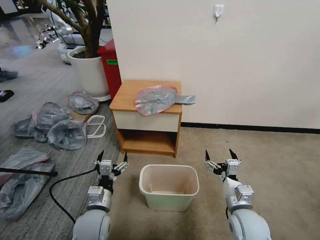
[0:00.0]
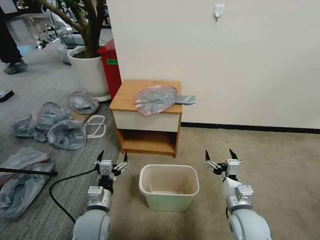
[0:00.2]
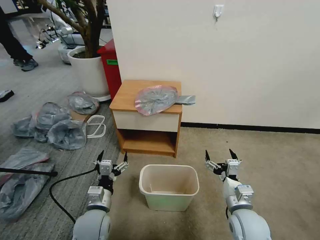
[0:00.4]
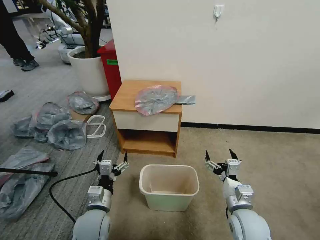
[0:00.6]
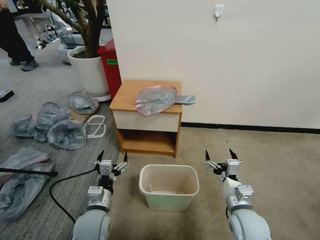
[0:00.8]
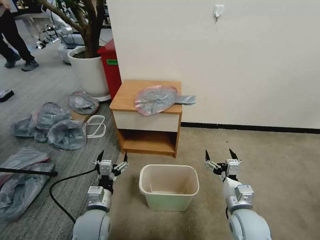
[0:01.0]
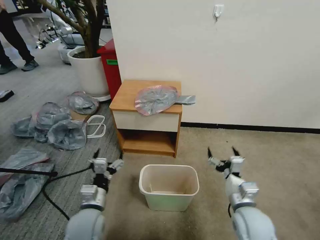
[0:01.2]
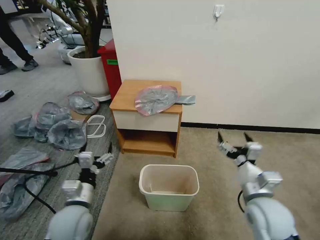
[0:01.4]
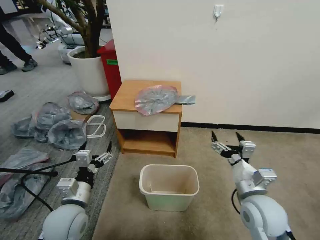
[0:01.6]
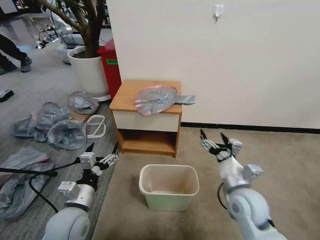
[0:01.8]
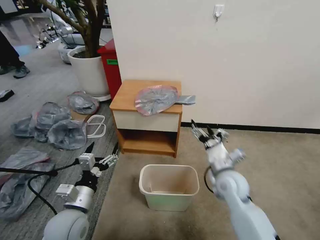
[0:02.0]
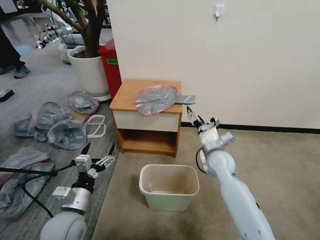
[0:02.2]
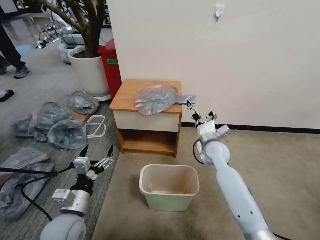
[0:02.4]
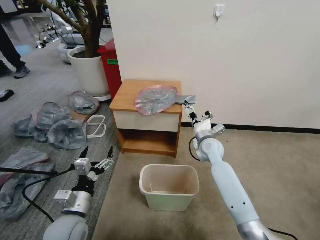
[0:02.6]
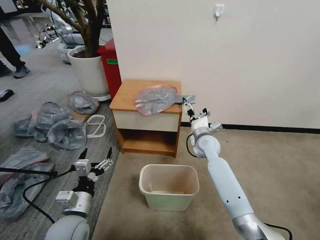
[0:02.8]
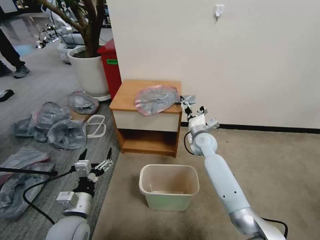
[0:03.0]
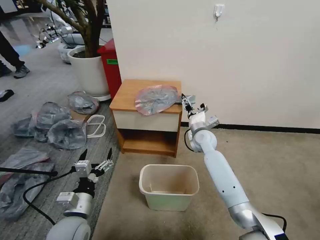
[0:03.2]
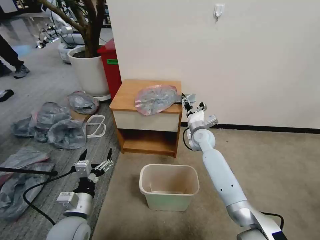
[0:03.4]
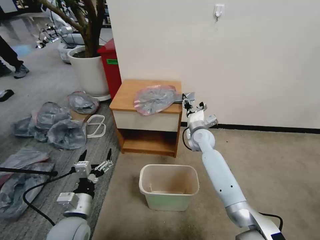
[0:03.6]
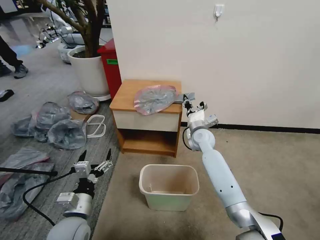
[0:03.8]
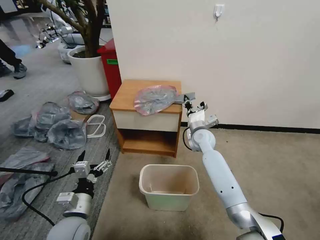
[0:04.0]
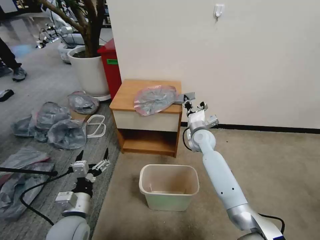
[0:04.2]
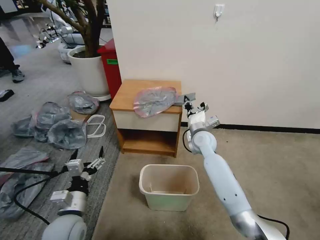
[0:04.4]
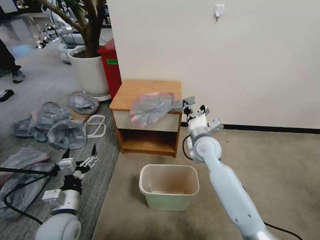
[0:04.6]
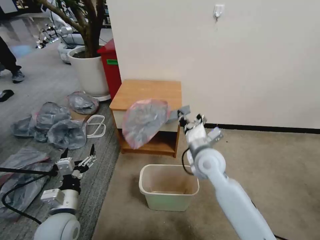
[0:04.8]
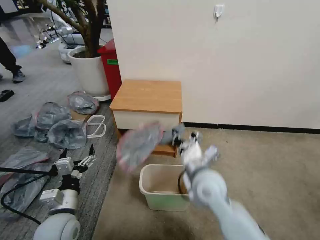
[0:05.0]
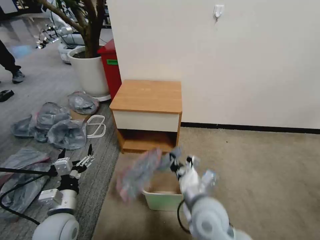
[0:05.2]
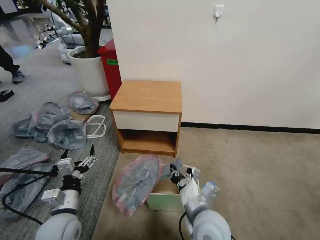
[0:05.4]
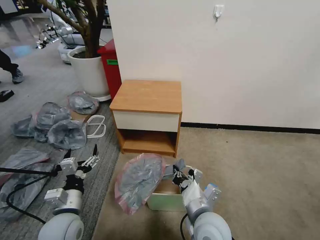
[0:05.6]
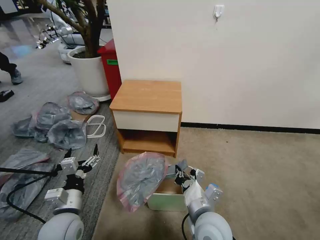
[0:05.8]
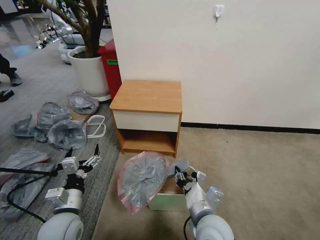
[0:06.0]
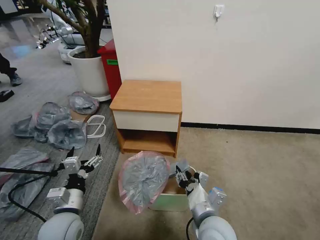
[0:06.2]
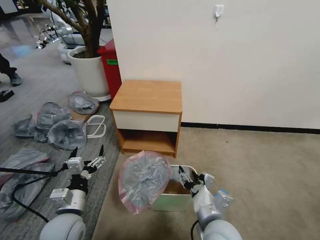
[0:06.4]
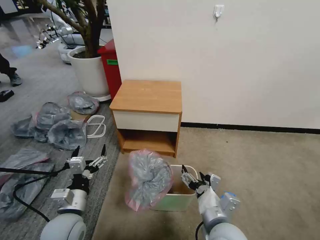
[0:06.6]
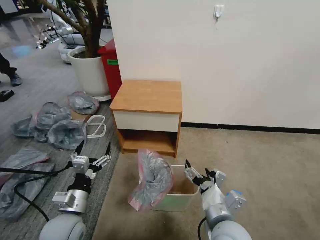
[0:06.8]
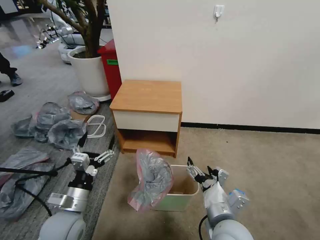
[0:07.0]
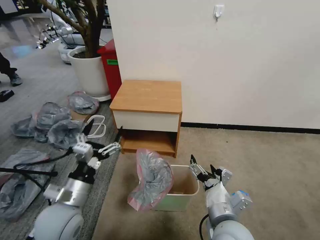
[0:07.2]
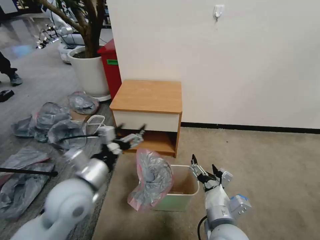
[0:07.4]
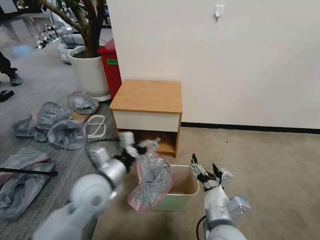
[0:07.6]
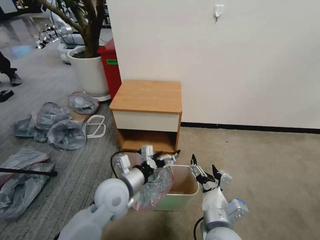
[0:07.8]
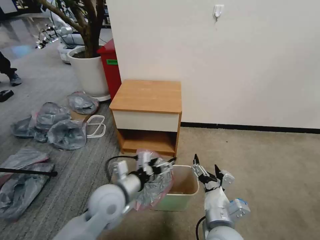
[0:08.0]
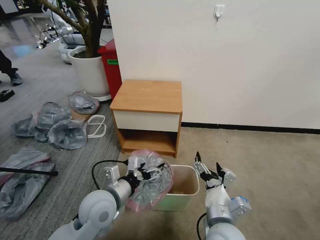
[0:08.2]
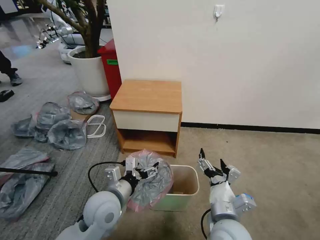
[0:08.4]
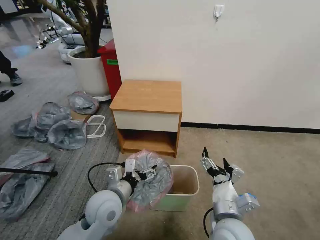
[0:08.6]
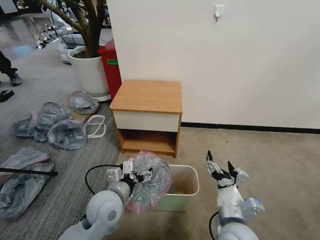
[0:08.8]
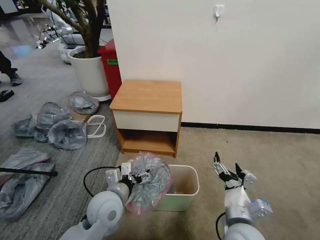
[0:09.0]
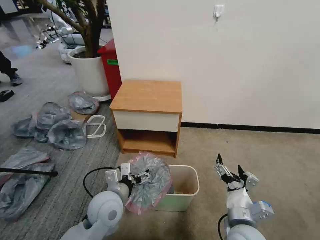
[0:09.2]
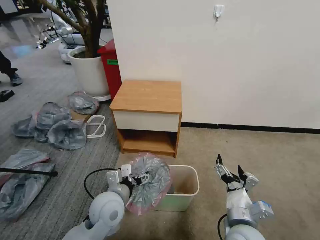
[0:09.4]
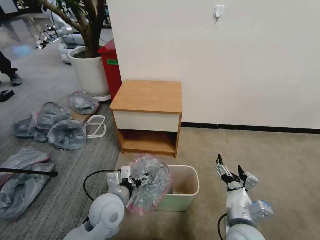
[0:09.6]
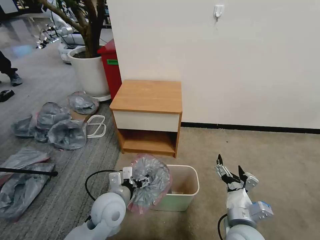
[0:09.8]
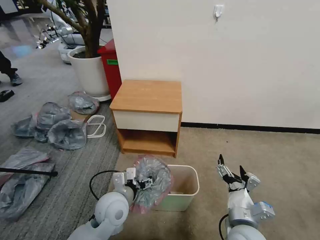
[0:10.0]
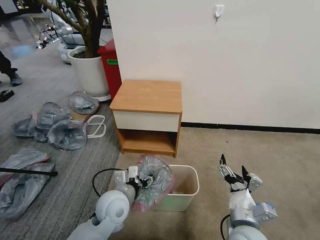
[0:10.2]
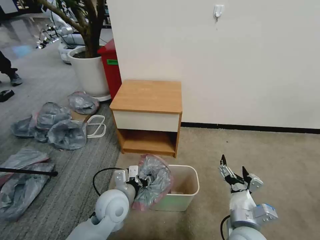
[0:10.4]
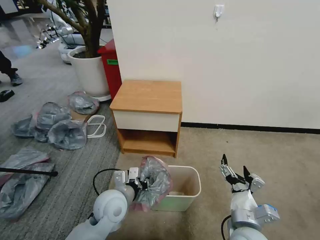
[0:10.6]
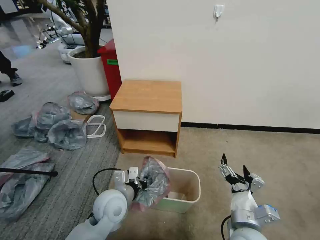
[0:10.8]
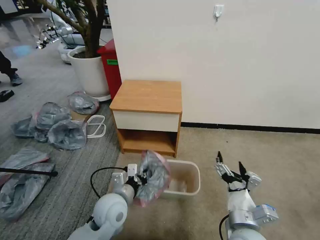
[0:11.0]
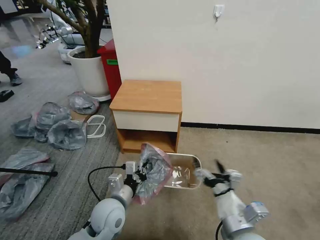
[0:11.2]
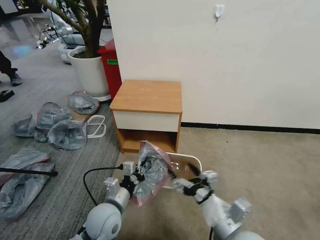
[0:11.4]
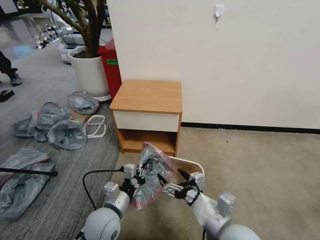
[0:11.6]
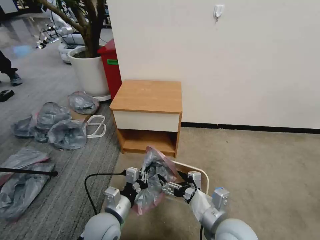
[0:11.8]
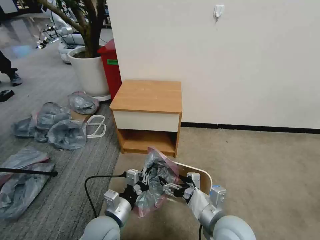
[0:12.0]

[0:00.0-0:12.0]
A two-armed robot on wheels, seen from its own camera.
Task of the whole recording: Pick up the garbage bag from the table and place it over the trash can.
0:01.6 to 0:03.0: The right gripper moves forward, roughly 25 cm.
0:03.0 to 0:04.4: The right gripper closes up.
0:04.4 to 0:06.0: The right gripper travels backward by roughly 30 cm.
0:06.0 to 0:07.6: The right gripper opens. The left gripper heads to the right, upward and forward, covering about 15 cm.
0:07.6 to 0:09.0: The left gripper moves downward, approximately 5 cm. Meanwhile the right gripper travels to the right by approximately 5 cm.
0:09.0 to 0:10.4: The left gripper closes.
0:10.4 to 0:12.0: The right gripper moves about 5 cm. Meanwhile the left gripper goes roughly 5 cm backward, and closes its fingers.

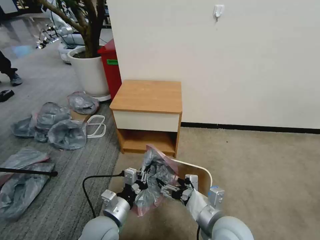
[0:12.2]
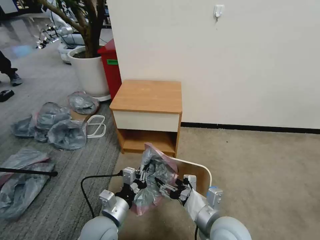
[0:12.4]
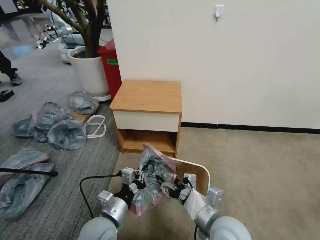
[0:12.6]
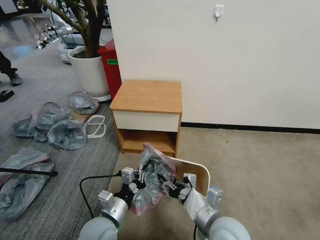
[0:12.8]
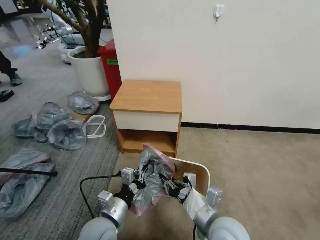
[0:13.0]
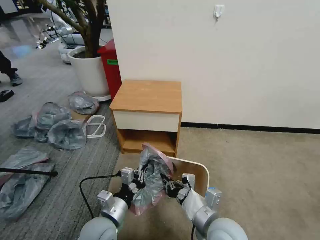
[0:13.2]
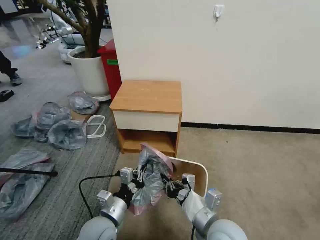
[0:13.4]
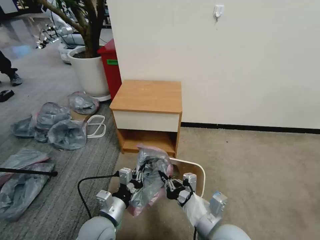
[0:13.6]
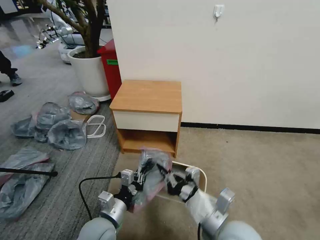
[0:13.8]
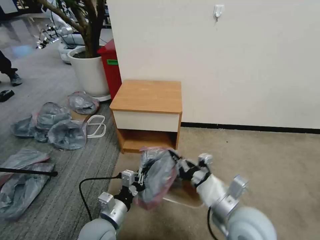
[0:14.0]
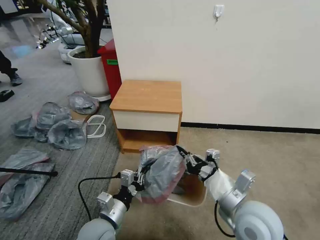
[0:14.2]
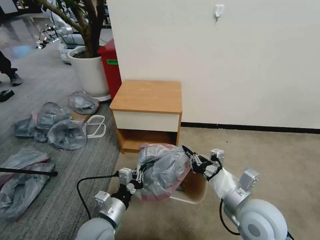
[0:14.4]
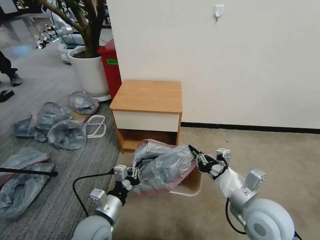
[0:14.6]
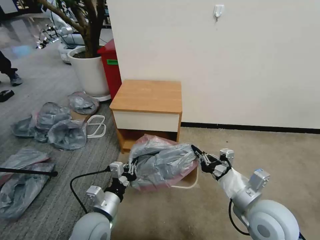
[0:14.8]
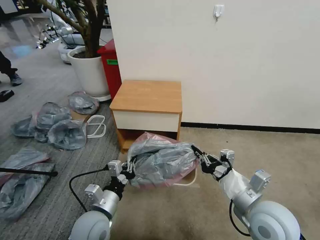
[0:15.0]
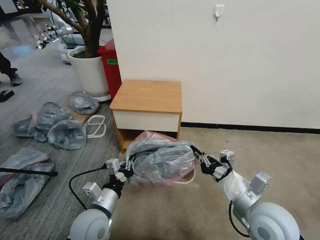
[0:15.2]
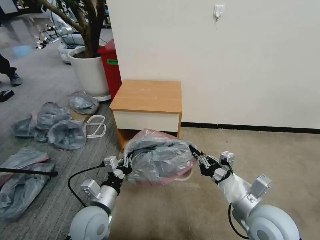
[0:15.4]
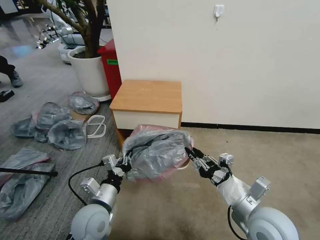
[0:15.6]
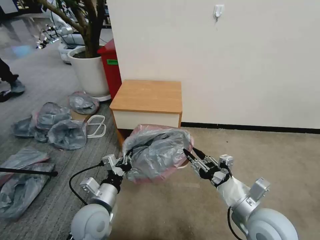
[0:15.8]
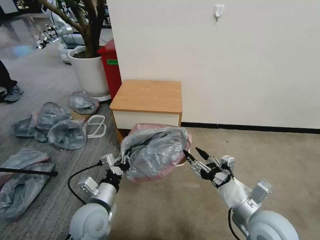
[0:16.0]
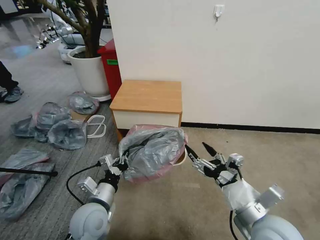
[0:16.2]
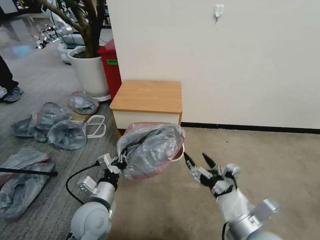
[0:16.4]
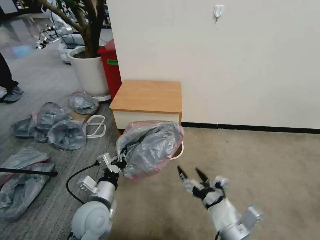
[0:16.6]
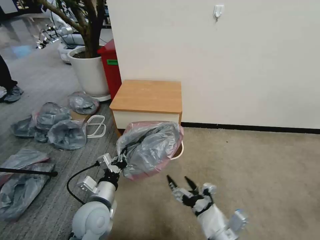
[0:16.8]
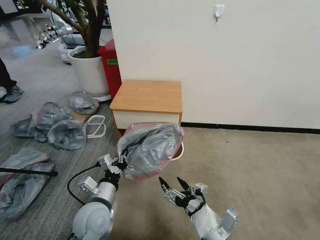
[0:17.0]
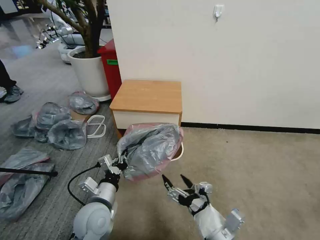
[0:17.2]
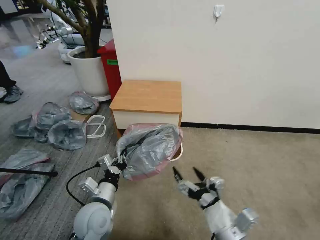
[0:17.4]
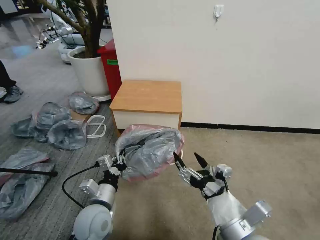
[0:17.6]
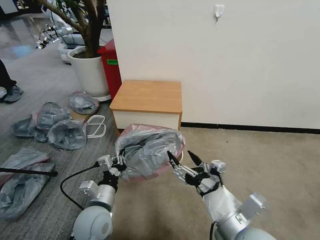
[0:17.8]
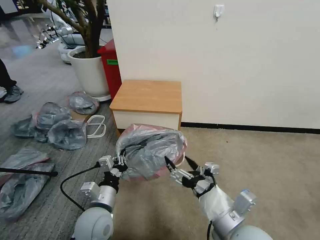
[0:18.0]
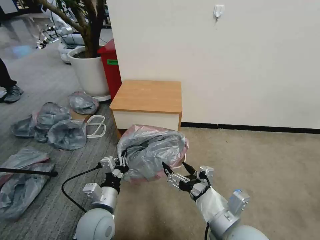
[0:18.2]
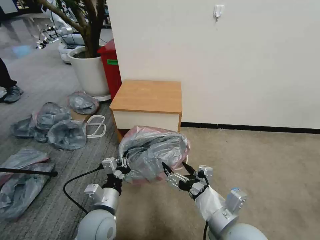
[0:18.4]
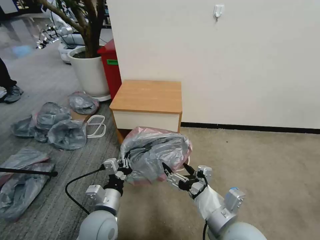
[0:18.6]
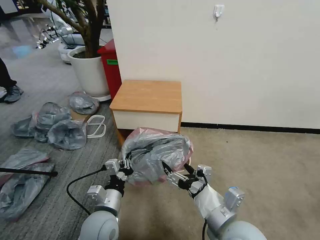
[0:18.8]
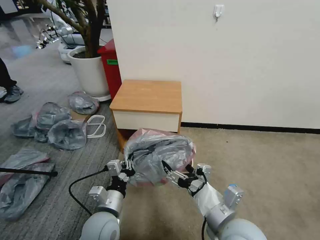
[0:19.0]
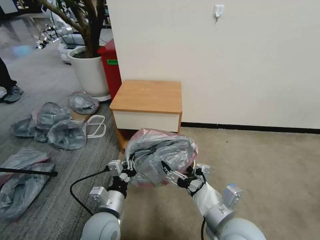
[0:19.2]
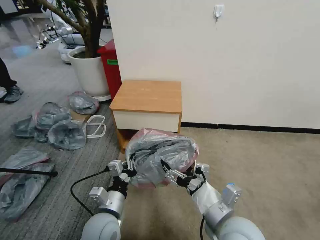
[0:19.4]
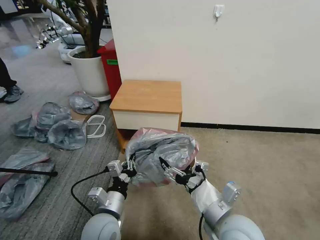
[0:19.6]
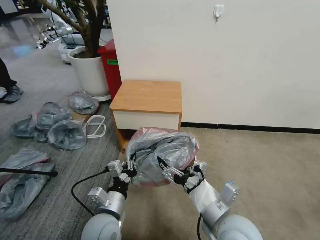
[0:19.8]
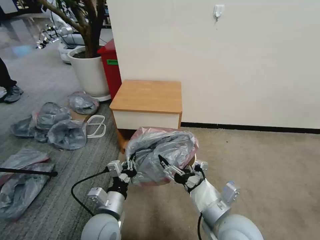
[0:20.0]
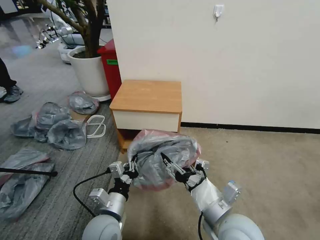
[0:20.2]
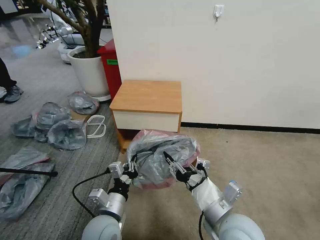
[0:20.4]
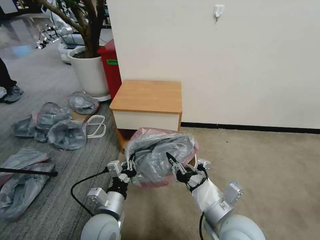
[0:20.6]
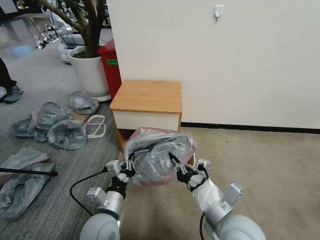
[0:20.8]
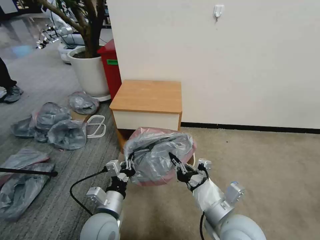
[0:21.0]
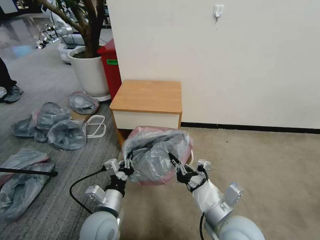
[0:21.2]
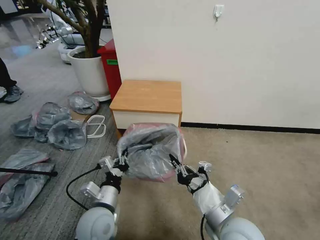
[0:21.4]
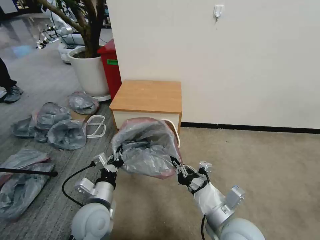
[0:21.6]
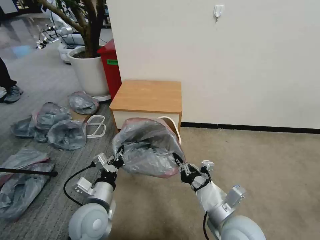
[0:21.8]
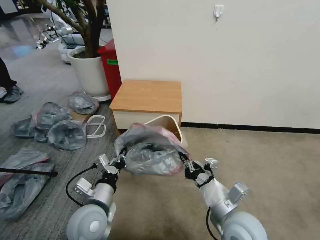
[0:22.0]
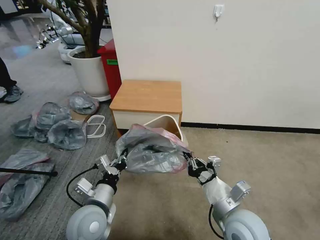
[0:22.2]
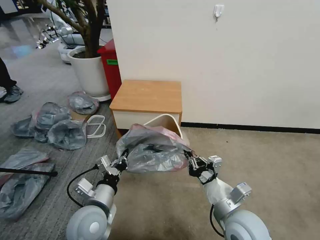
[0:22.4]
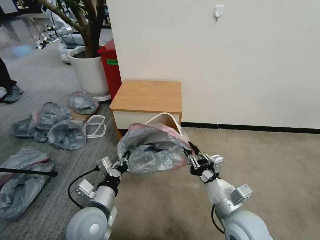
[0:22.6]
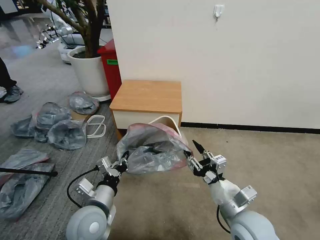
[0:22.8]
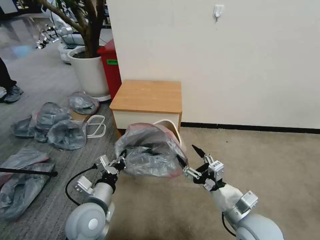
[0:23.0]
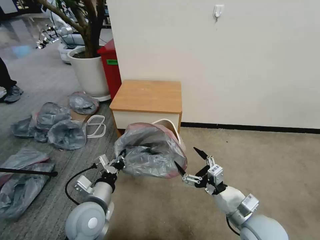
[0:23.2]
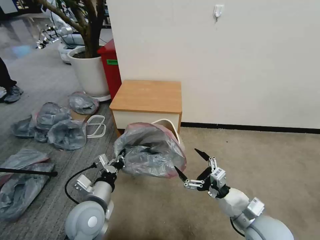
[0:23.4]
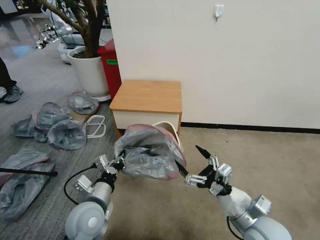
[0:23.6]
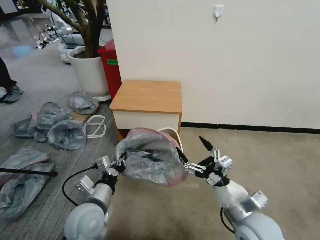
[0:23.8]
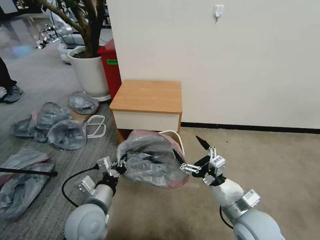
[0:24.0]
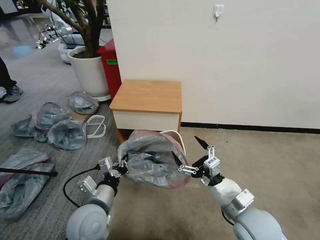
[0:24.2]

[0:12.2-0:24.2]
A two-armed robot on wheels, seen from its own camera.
Task of the whole recording: Pick up the garbage bag from the table and place it over the trash can.
0:12.2 to 0:13.8: The right gripper closes its fingers.
0:13.8 to 0:15.2: The right gripper goes approximately 10 cm to the right.
0:15.2 to 0:16.6: The right gripper is displaced backward and to the left by some 10 cm, and opens up.
0:16.6 to 0:18.2: The right gripper shifts approximately 5 cm upward.
0:18.2 to 0:19.8: The grippers make only small movements.
0:19.8 to 0:21.2: The right gripper closes its fingers.
0:21.2 to 0:22.6: The right gripper changes place by about 5 cm.
0:22.6 to 0:24.2: The right gripper opens.
